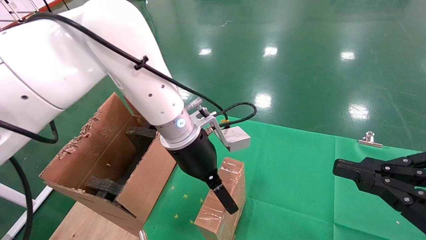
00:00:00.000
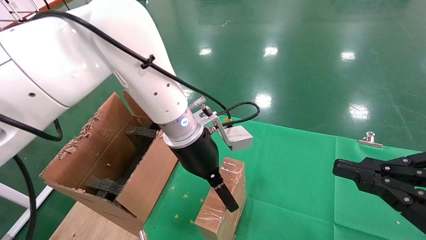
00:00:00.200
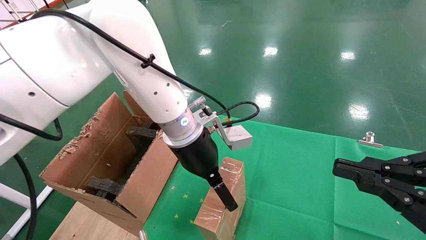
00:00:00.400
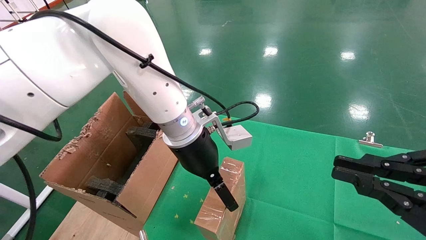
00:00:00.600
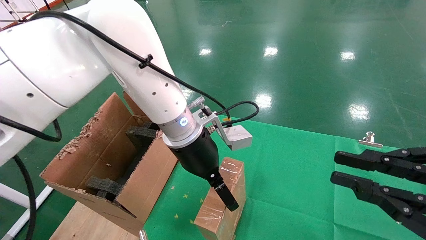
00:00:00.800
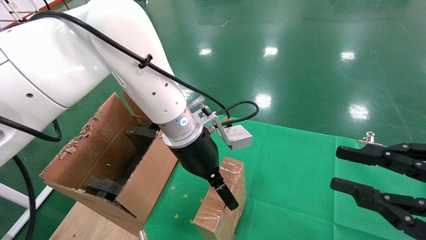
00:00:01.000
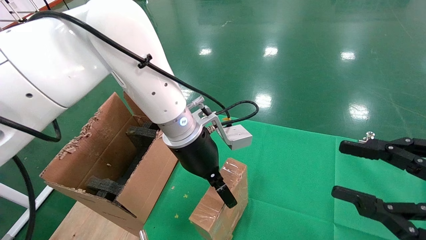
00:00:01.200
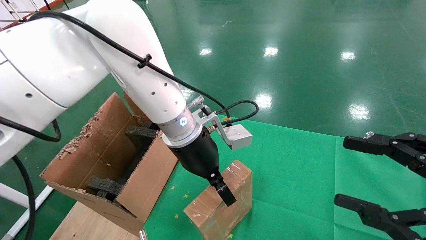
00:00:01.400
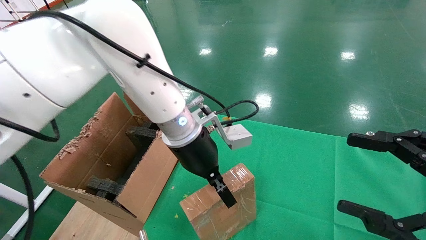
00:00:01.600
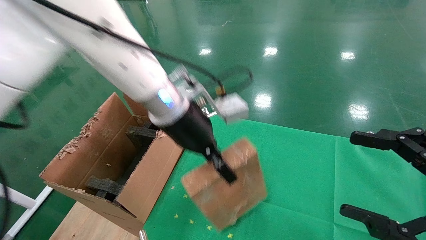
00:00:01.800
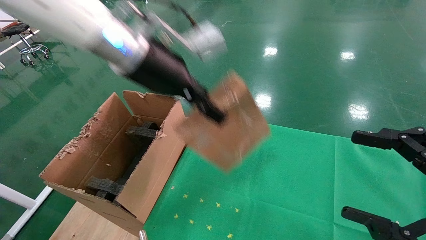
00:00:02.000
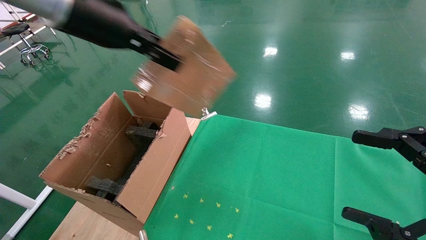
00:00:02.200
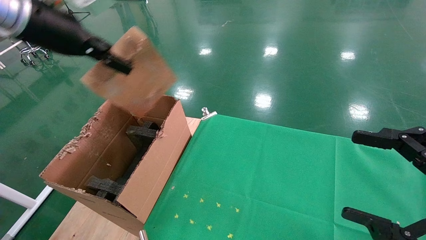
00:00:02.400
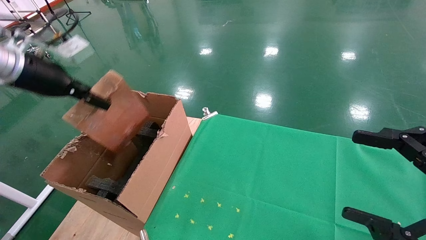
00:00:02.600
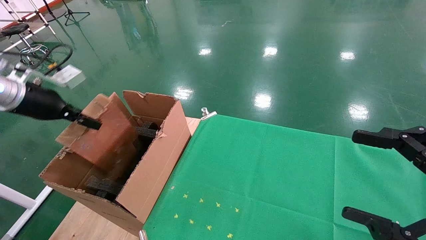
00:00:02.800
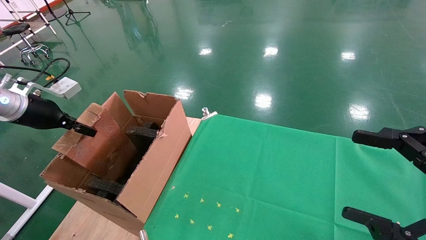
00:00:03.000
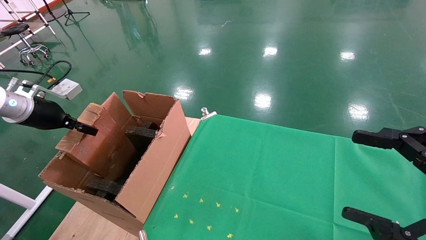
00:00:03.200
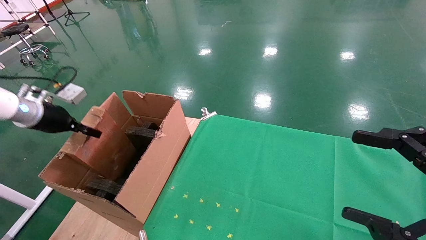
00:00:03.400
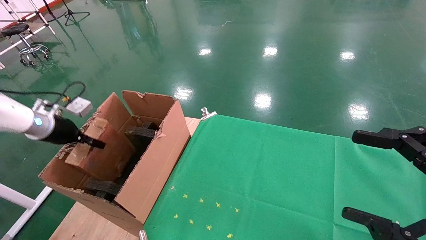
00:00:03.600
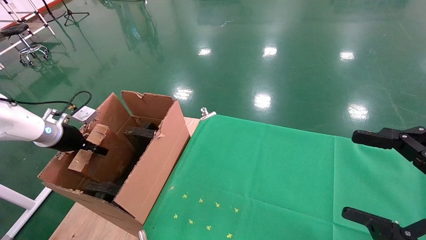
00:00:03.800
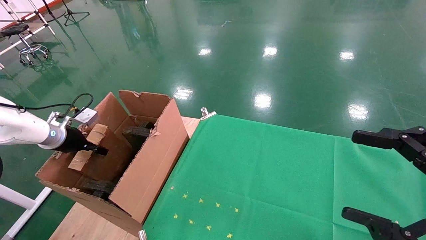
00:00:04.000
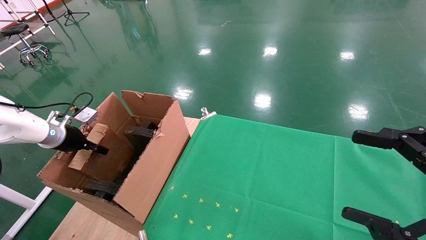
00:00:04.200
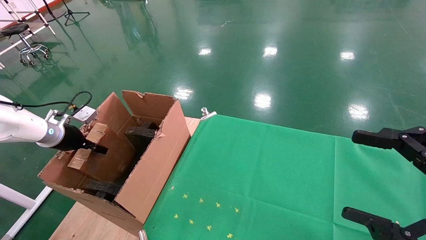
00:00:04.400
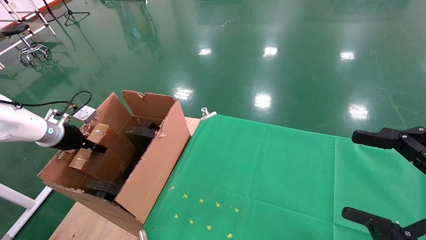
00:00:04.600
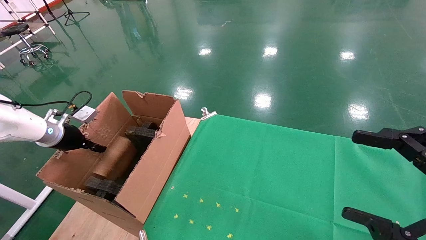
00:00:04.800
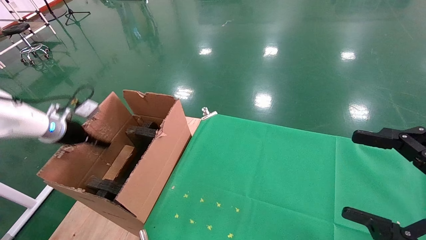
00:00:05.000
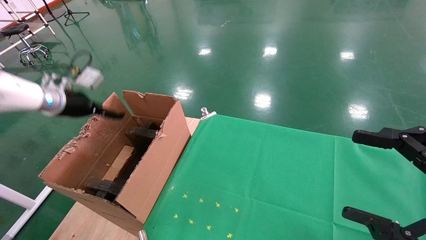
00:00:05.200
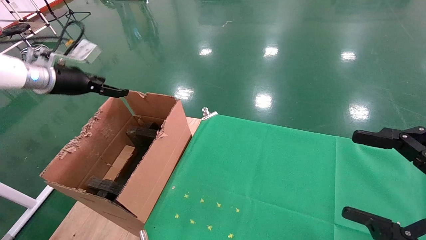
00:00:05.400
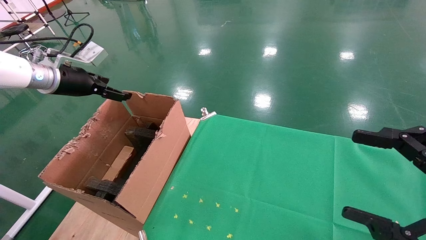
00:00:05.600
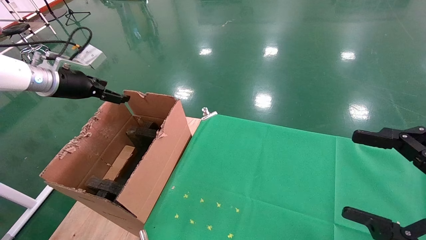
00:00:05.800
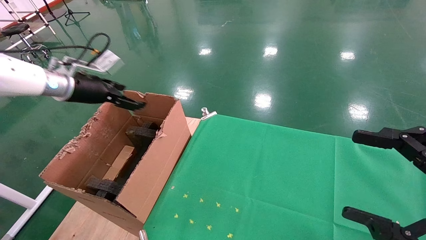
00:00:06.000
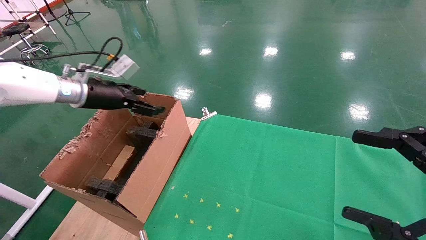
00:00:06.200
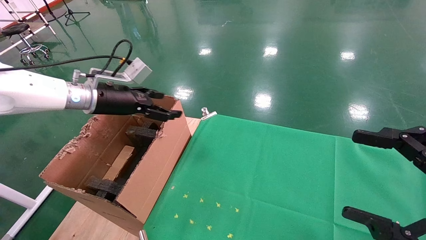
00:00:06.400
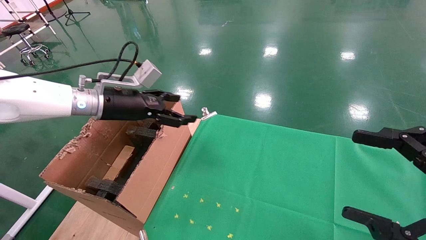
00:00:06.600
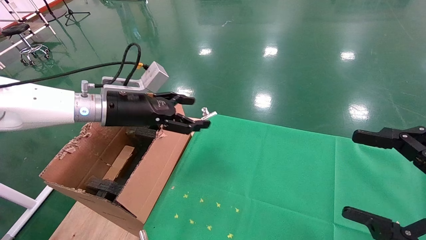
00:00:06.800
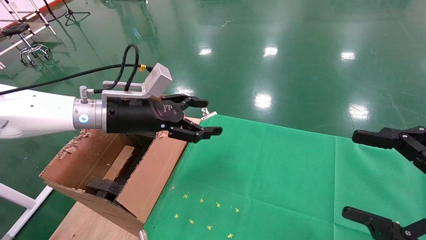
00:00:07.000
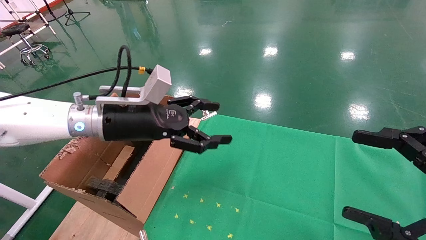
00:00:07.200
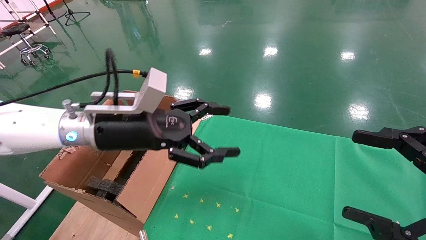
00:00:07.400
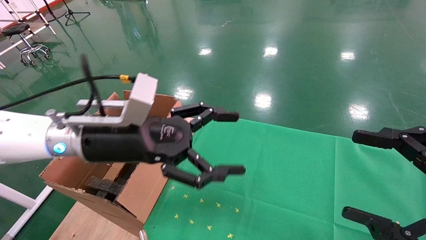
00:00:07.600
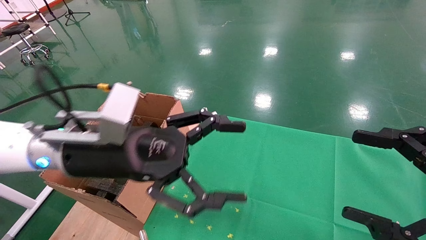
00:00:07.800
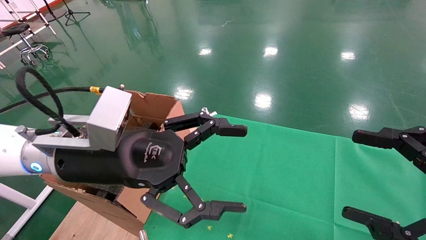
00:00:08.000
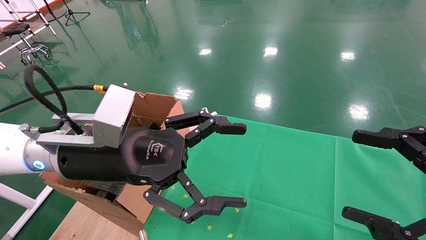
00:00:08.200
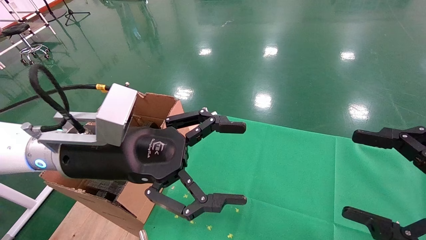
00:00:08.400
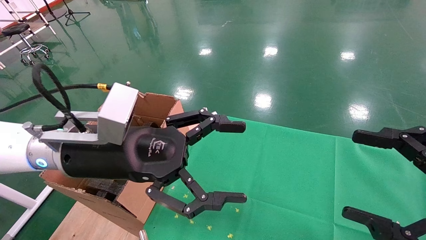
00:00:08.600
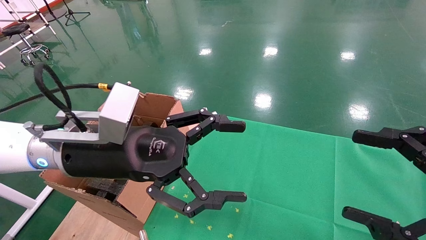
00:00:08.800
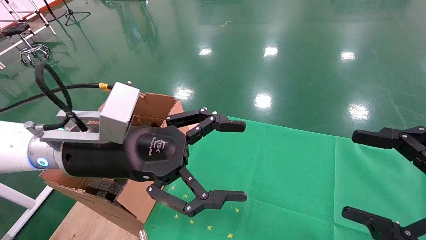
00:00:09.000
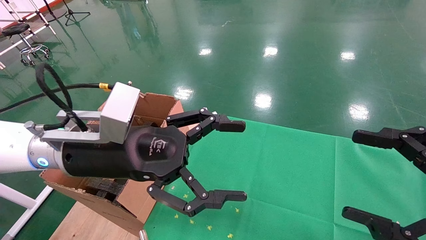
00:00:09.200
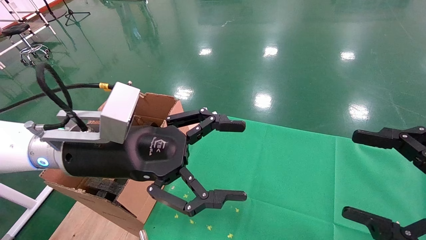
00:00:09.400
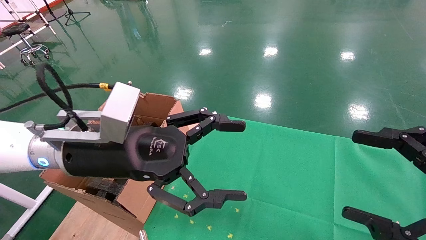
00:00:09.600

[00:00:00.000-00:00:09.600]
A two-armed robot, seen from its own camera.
Task of the whole recording: using a robotic arm to pick up a cardboard box and palace it the carton.
Step, 00:00:01.600 to 00:00:05.400: Place the mouse and the power cord paper box into the container.
00:00:00.000 to 00:00:01.600: The left gripper closes its fingers. The right gripper opens its fingers.
00:00:01.600 to 00:00:03.200: The left gripper moves to the left, approximately 40 cm.
00:00:03.200 to 00:00:04.800: The left gripper heads downward, covering roughly 10 cm.
00:00:04.800 to 00:00:06.400: The left gripper shifts some 20 cm to the right and upward, and opens its fingers.
00:00:06.400 to 00:00:08.000: The left gripper heads backward and to the right, covering about 20 cm.
00:00:08.000 to 00:00:09.600: Both grippers stay about where they are.

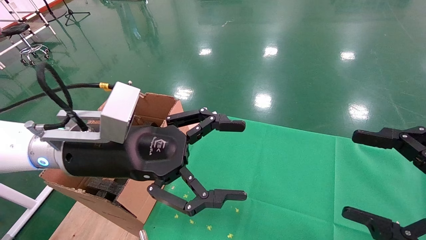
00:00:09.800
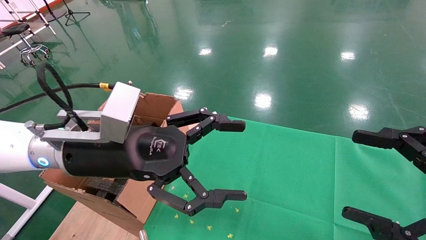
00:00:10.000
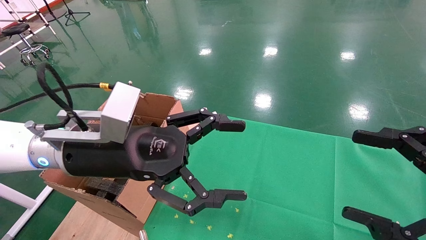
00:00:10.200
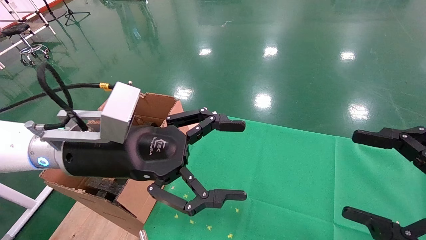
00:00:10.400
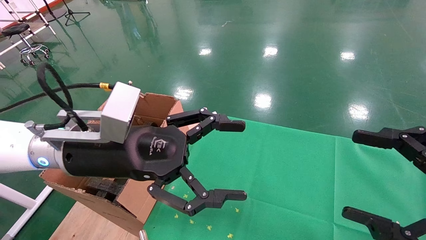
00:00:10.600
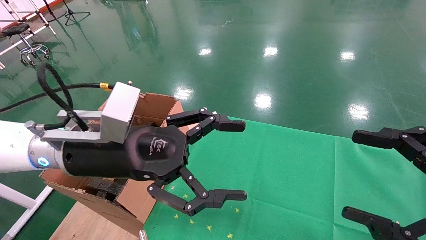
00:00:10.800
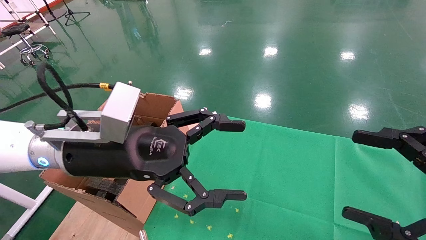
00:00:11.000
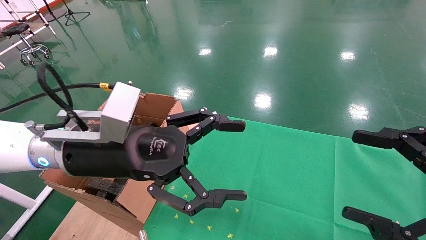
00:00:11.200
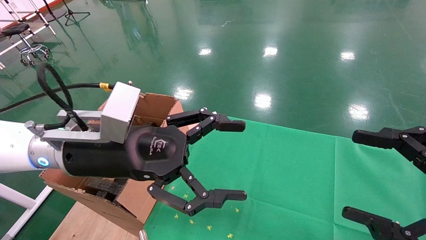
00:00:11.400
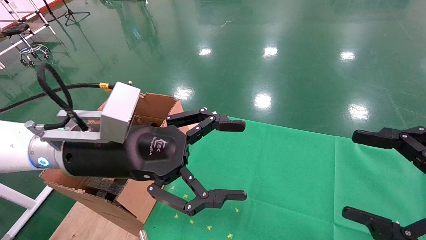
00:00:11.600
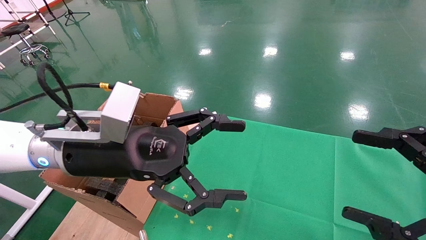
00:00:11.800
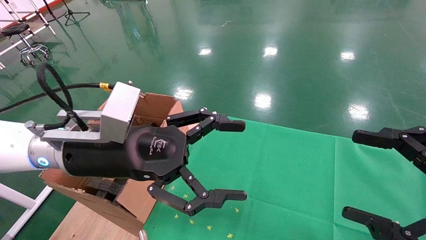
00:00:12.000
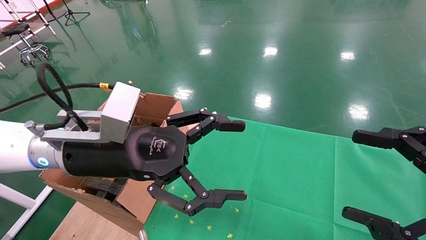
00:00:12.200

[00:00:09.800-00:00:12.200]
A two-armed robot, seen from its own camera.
Task of the whole recording: using a robotic arm to pick up a cardboard box and palace it the carton.
00:00:09.800 to 00:00:12.200: The two grippers keep their place.

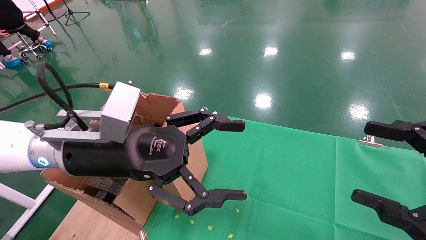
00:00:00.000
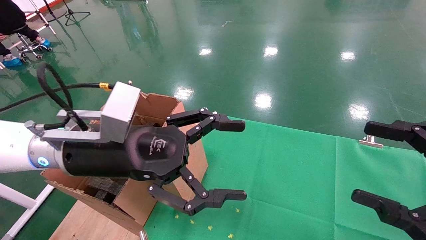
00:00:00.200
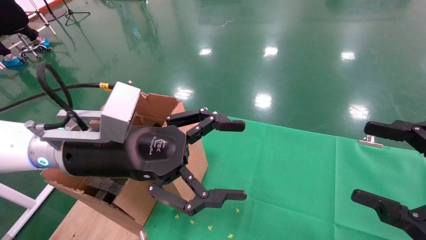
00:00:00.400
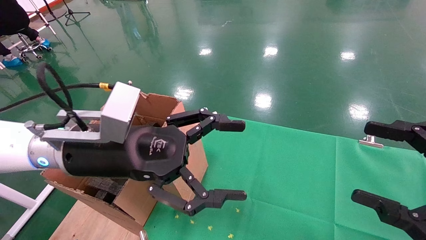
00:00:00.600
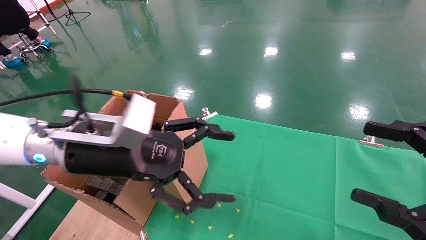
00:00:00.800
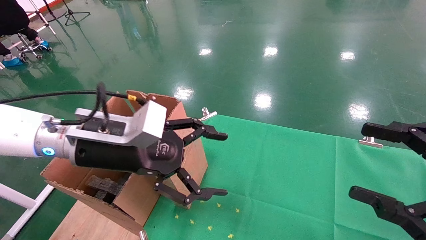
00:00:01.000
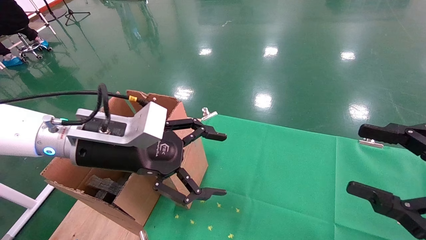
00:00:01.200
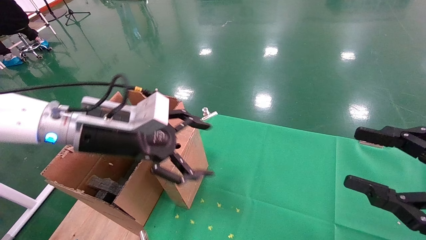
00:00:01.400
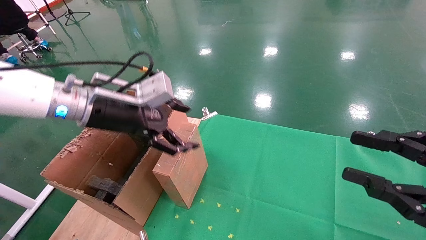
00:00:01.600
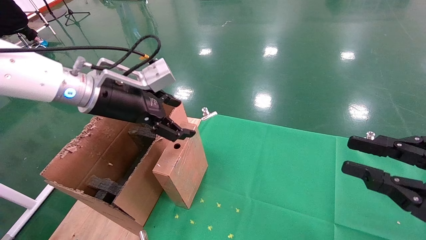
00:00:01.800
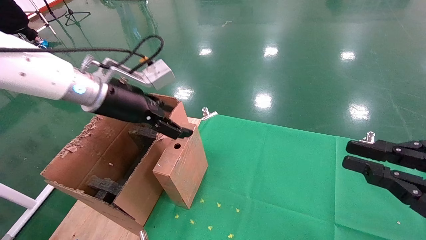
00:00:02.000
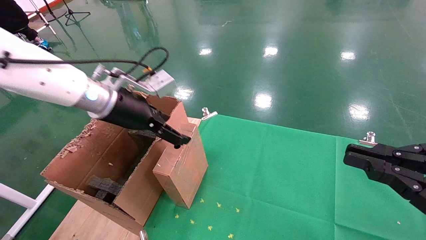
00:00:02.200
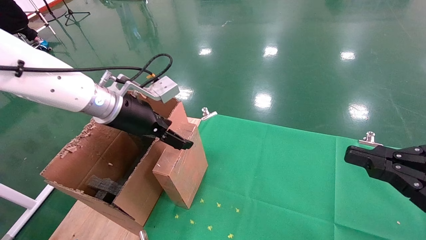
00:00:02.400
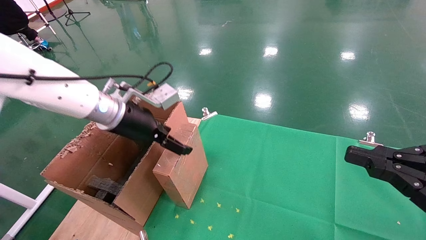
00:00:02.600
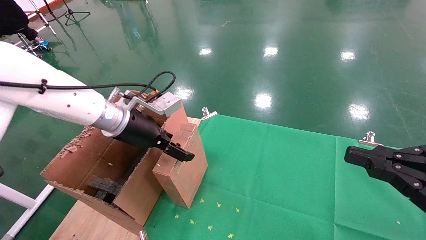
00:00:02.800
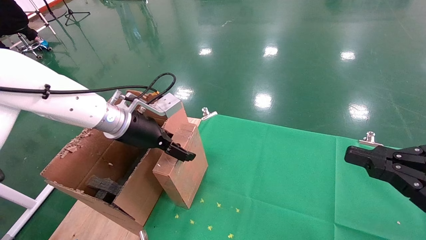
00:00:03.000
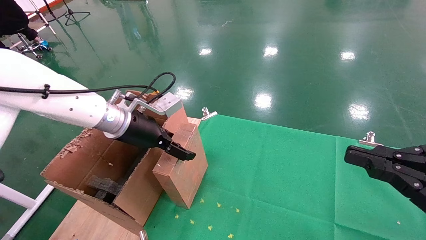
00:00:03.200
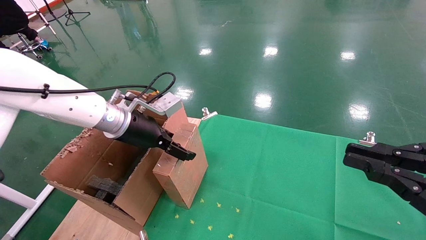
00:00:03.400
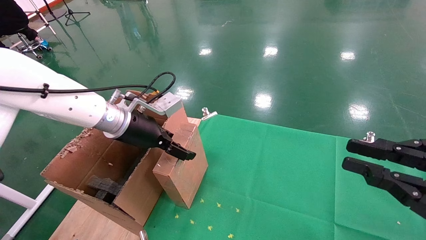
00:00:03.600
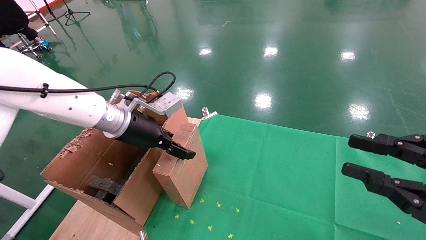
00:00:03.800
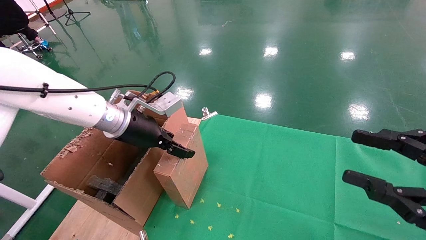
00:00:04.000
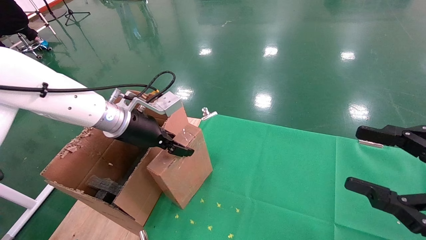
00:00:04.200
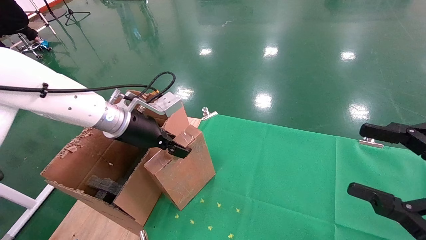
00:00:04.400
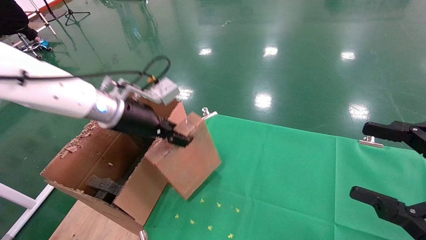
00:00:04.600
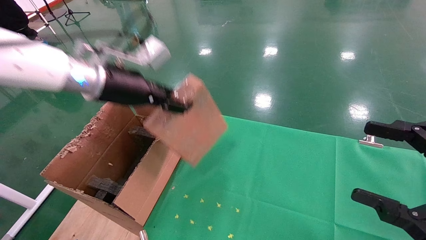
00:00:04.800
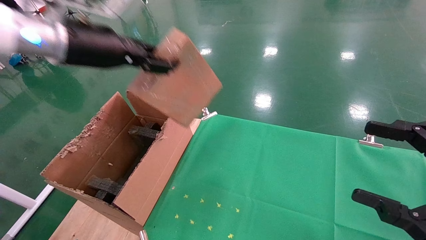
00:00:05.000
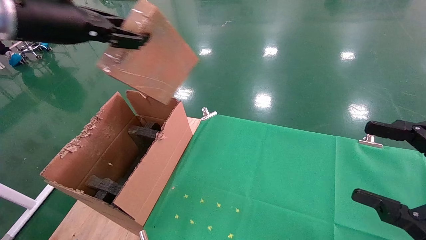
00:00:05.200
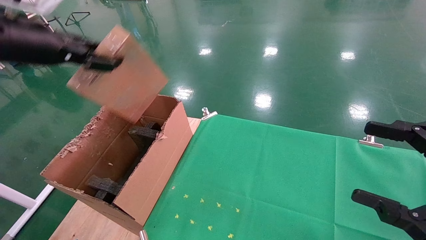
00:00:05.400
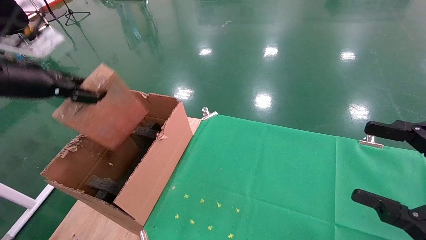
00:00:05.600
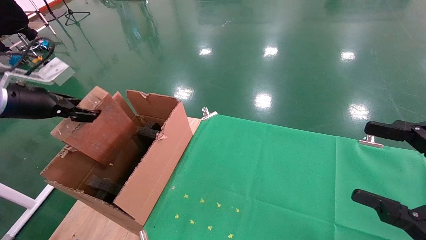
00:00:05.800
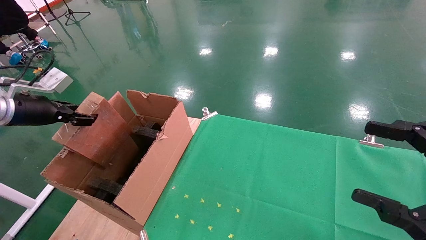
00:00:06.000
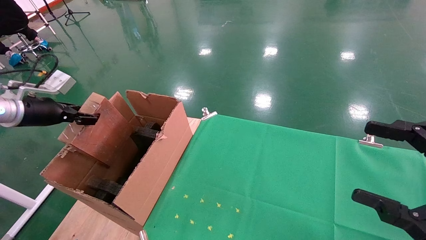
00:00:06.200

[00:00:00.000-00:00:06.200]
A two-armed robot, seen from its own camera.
Task of the whole recording: using a robotic arm to pick up a cardboard box and palace it the carton.
Step, 00:00:01.000 to 00:00:04.200: Pick up the mouse and the power cord paper box.
00:00:00.000 to 00:00:01.600: The left gripper moves forward, some 10 cm. The right gripper closes.
00:00:01.600 to 00:00:03.200: The right gripper closes up, while the left gripper is displaced downward by roughly 5 cm.
00:00:03.200 to 00:00:04.600: The right gripper opens up. The left gripper closes its fingers.
00:00:04.600 to 00:00:06.200: The left gripper travels to the left by roughly 25 cm.
